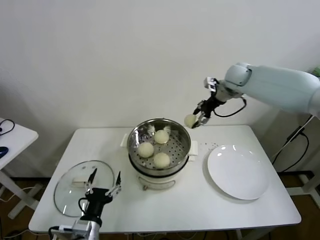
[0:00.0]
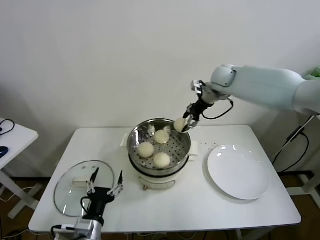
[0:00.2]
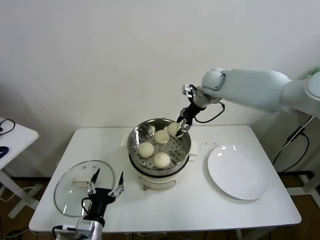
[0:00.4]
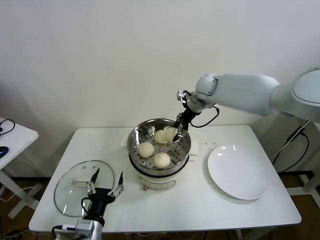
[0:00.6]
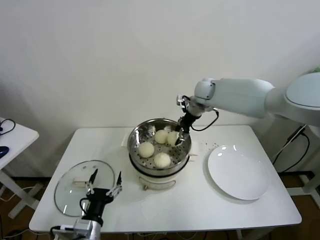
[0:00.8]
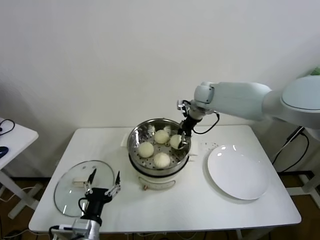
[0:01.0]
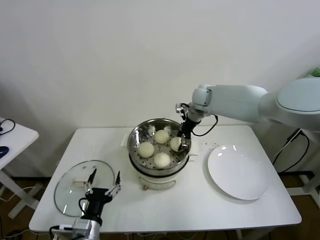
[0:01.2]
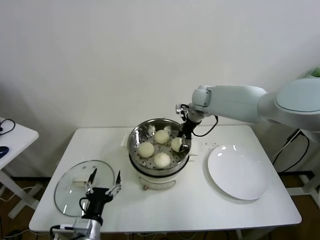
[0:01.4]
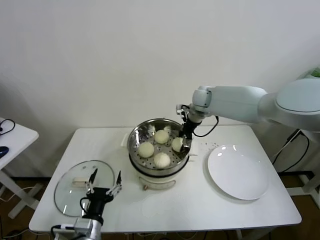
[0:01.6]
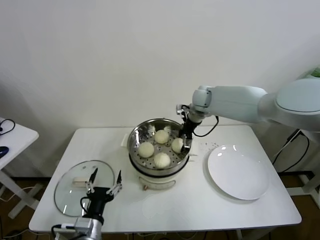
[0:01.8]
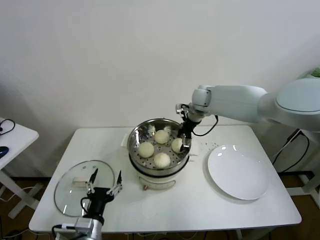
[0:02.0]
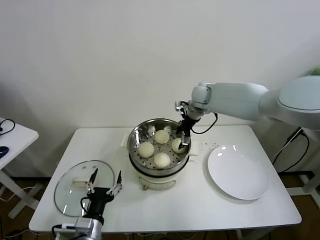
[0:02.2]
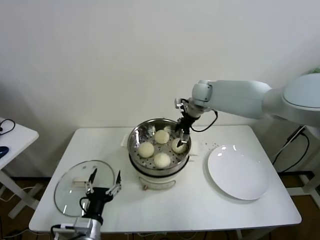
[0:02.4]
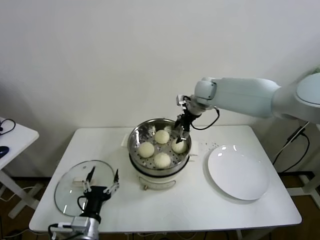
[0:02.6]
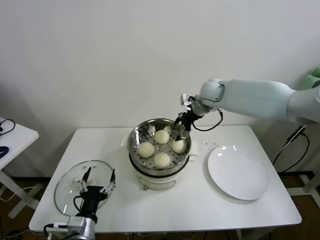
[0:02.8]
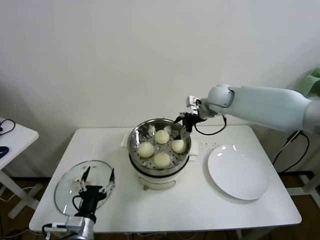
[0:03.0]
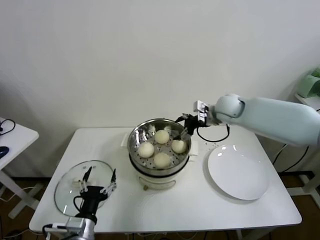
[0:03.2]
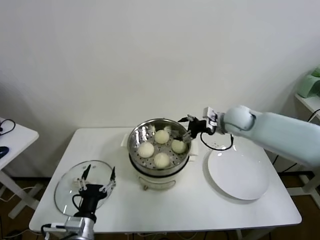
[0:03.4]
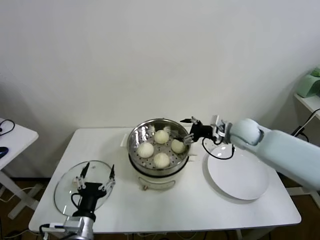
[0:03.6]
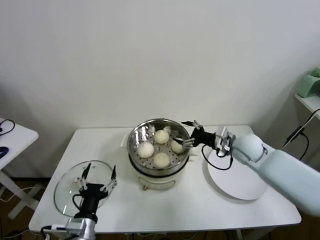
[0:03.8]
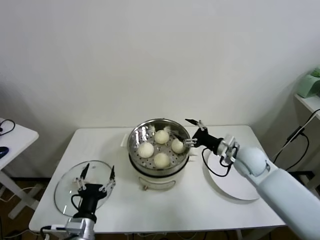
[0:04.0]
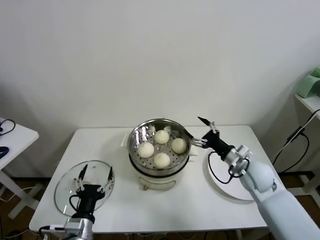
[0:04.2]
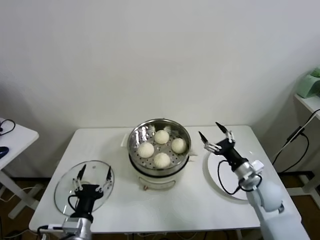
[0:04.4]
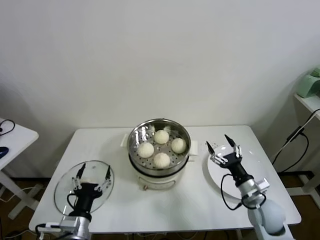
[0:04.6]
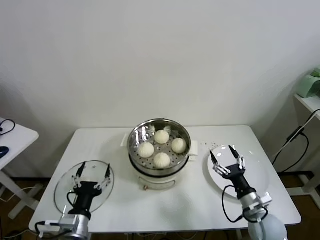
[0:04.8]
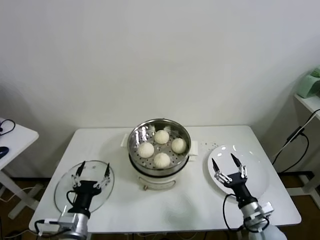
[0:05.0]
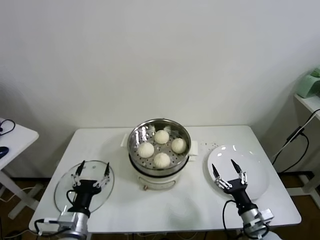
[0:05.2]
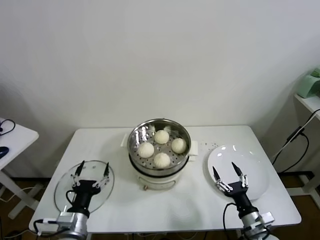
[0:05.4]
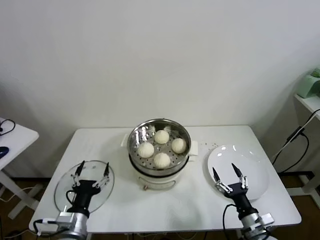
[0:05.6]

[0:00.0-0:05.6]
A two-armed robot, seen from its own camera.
Task of the whole recording: take steamed baozi put them in steamer.
Step, 0:00.0 to 0:02.0: Place the baozi on the steamer with right gripper.
0:00.0 to 0:01.4: The right gripper moves to the left and downward, some 15 cm.
0:01.4 to 0:02.8: The right gripper opens its fingers.
0:02.8 to 0:04.2: The right gripper shifts roughly 30 cm backward, downward and to the right.
0:04.2 to 0:05.6: The right gripper goes about 25 cm backward and downward.
